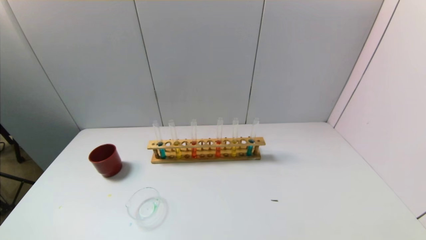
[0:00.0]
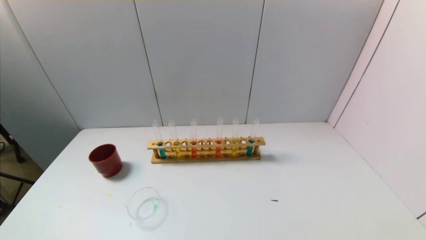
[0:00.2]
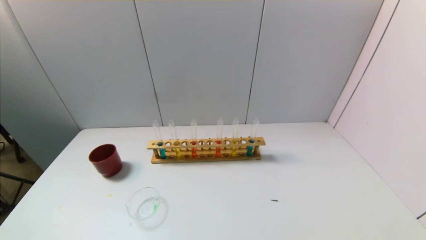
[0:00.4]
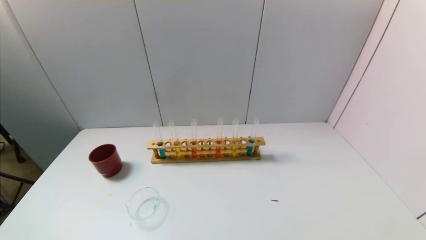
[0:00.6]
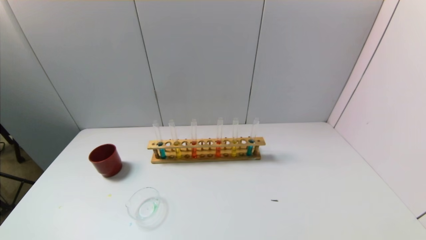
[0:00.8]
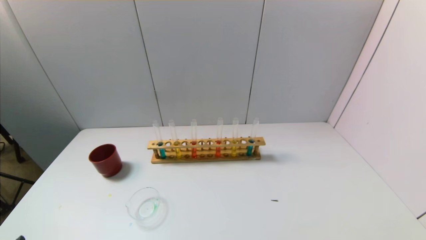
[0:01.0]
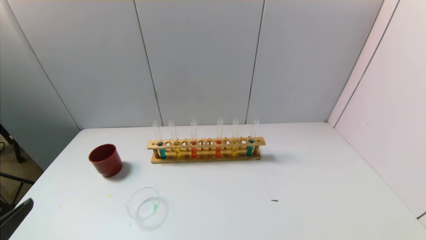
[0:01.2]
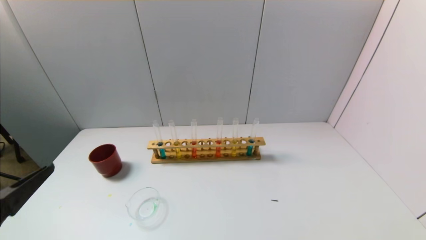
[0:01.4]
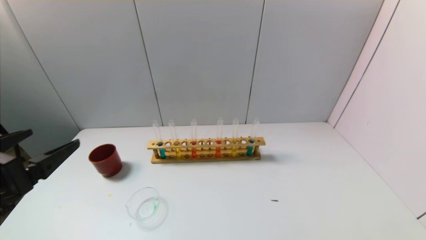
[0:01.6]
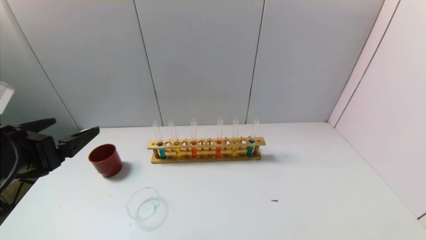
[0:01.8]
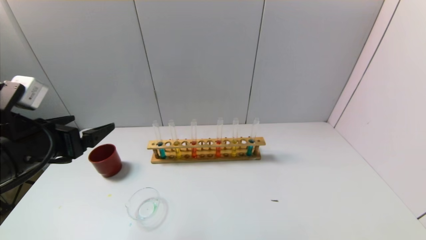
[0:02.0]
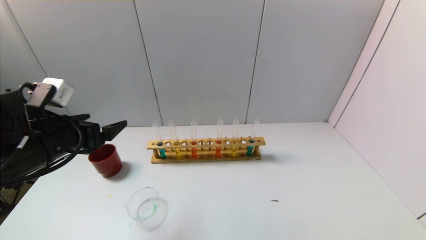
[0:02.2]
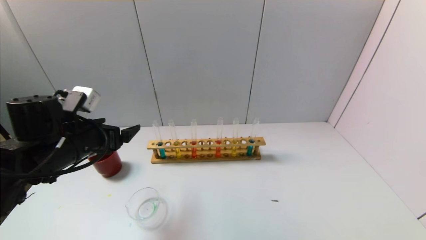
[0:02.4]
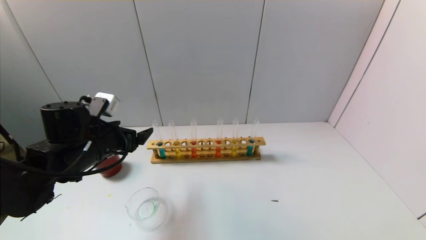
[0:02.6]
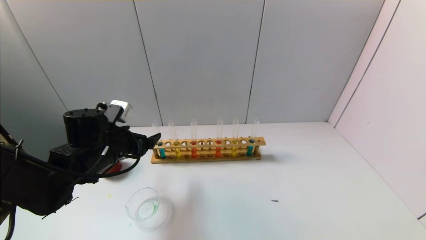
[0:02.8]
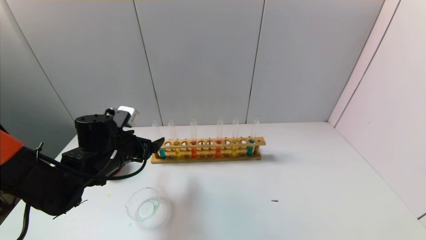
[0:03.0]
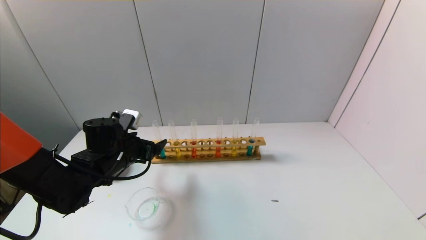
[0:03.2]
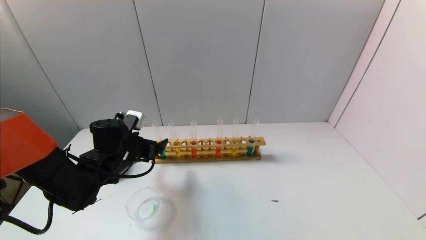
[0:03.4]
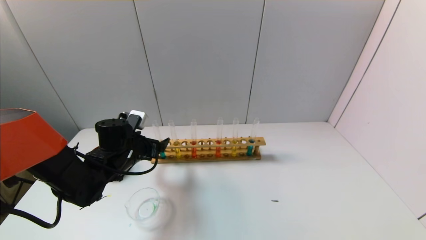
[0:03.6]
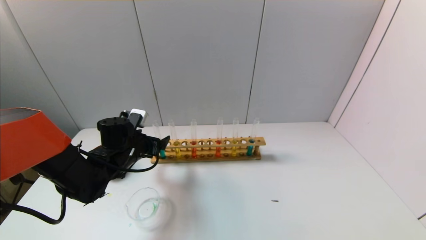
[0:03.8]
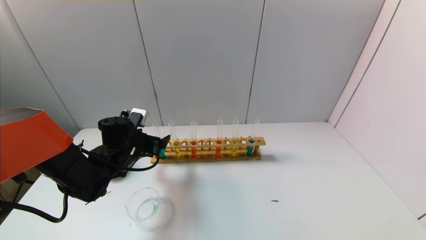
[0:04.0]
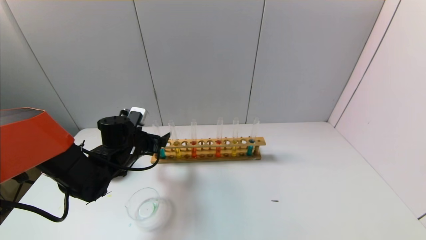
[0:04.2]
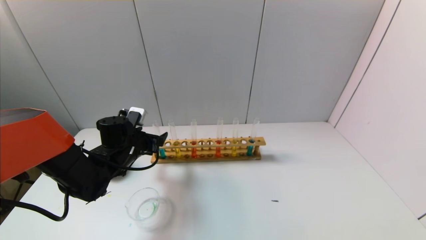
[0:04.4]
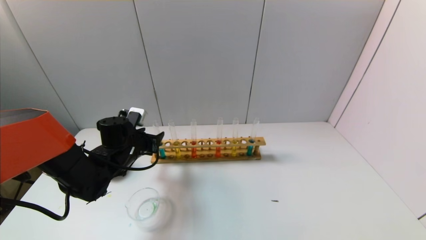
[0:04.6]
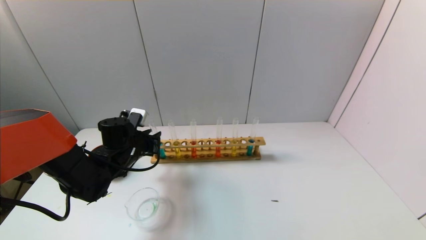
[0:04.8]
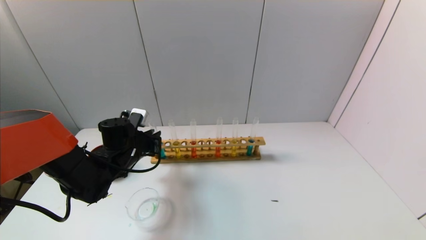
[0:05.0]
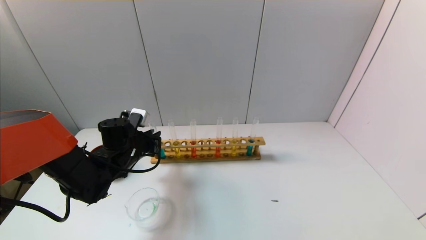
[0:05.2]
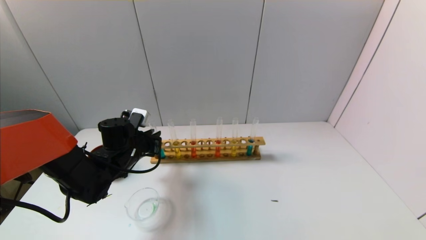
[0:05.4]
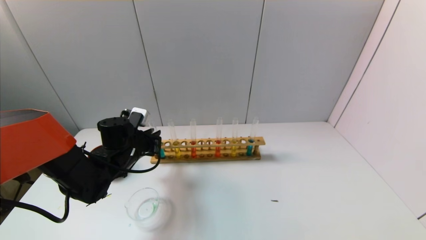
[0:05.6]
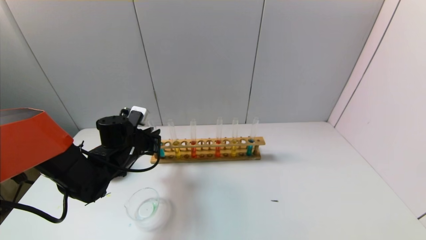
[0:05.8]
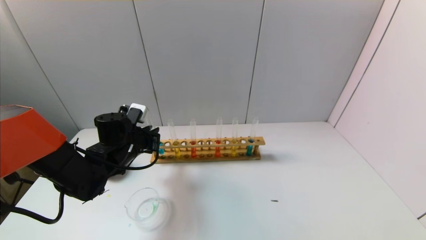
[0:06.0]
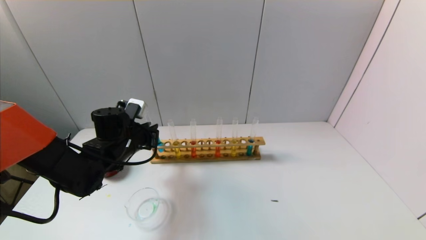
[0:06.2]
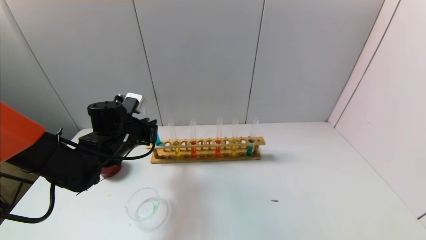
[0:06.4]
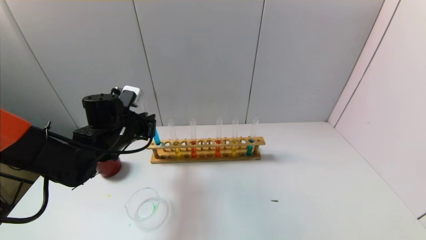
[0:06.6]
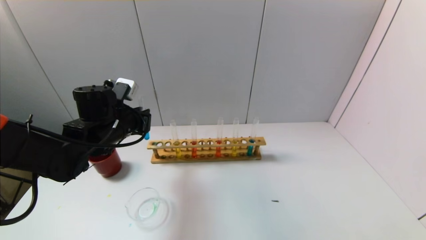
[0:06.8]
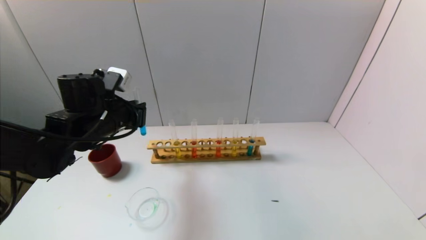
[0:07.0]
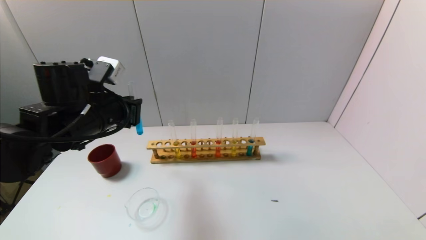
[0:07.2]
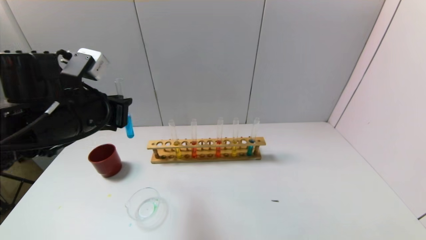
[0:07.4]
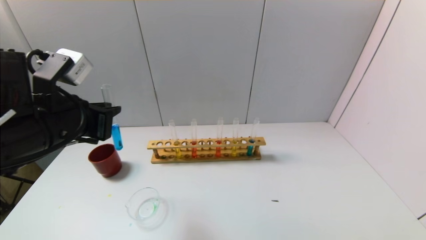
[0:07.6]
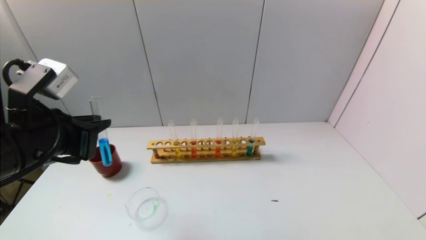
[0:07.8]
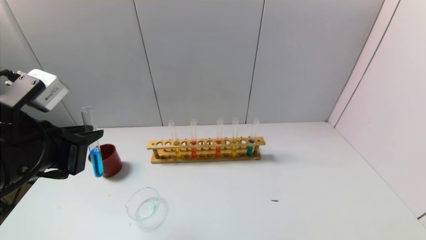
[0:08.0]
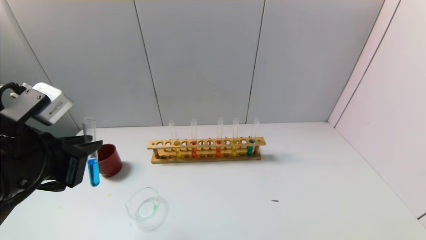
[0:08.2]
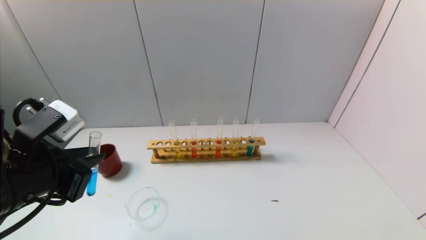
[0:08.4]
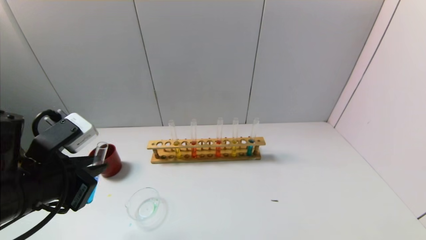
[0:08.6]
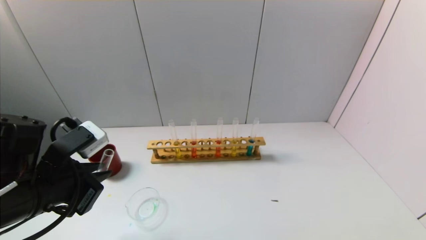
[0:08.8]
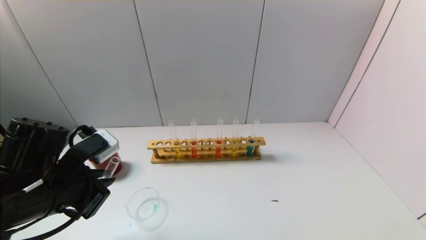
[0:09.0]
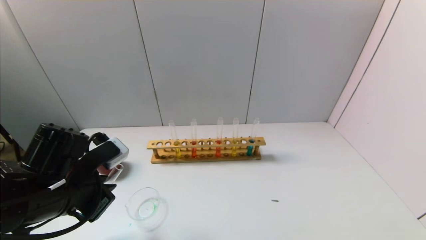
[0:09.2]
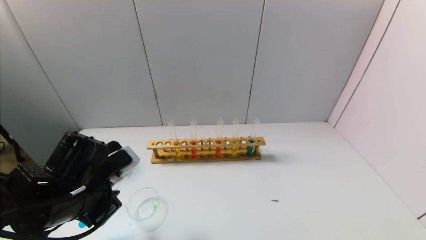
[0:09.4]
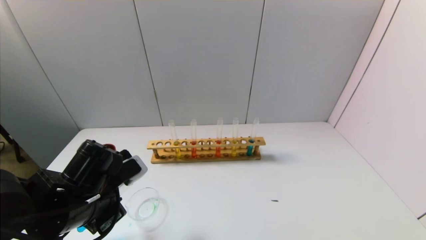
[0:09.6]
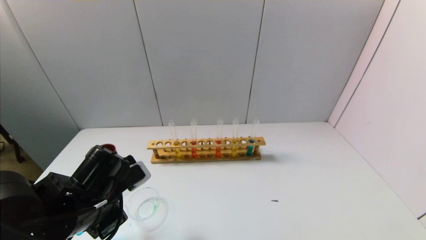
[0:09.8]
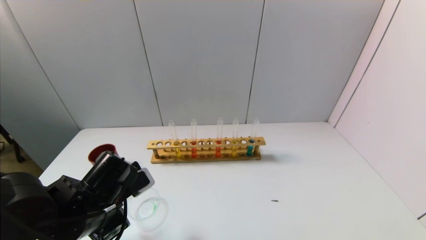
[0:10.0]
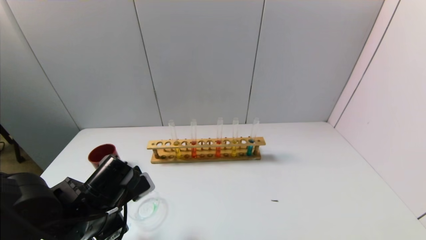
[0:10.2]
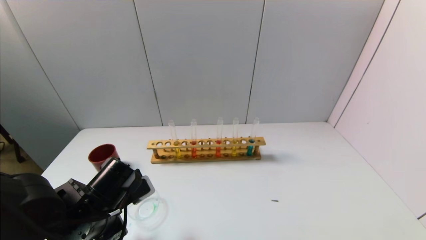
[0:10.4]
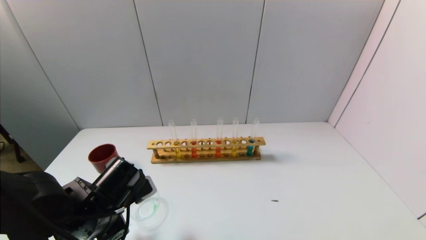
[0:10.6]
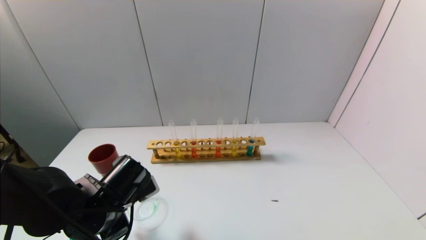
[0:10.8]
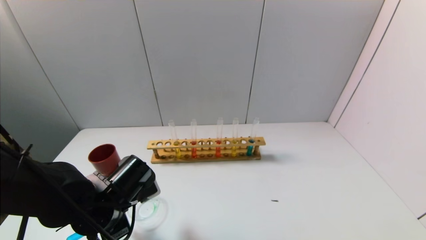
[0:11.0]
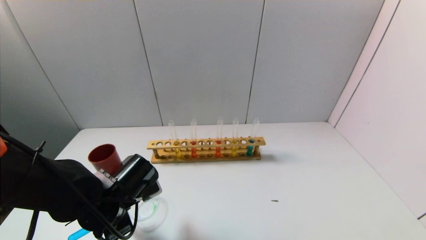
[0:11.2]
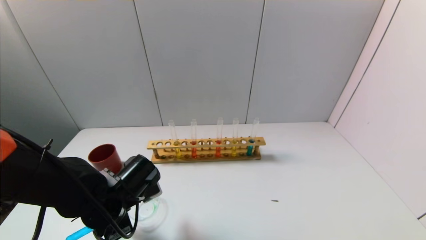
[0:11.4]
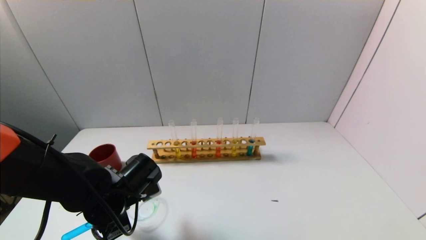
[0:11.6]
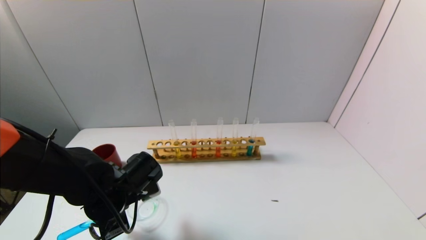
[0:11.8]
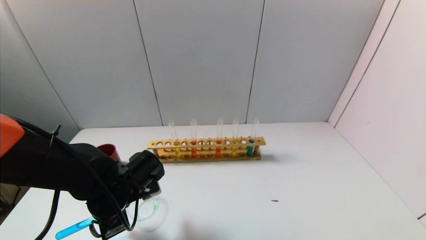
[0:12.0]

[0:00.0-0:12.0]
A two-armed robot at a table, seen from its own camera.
Task of the whole recording: pick up the test tube with yellow pigment and the test tube with blue pigment by grippers and pour them into the beaker.
Step, 0:00.0 to 0:05.2: Grasp the blue reagent with the left gripper.
0:00.0 to 0:01.6: The left gripper moves upward and forward, some 20 cm.
0:01.6 to 0:03.0: The left gripper moves forward, downward and to the right, roughly 20 cm.
0:03.0 to 0:04.4: The left gripper ends up approximately 5 cm from where it was.
0:04.4 to 0:06.0: The left gripper closes its fingers.
0:06.0 to 0:07.6: The left gripper travels upward and backward by approximately 20 cm.
0:07.6 to 0:09.0: The left gripper heads downward, covering approximately 10 cm.
0:09.0 to 0:10.4: The left gripper moves downward, roughly 10 cm.
0:10.4 to 0:12.0: There are only small adjustments of the grippers.

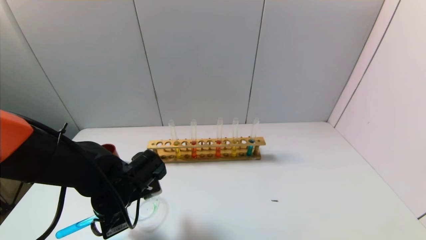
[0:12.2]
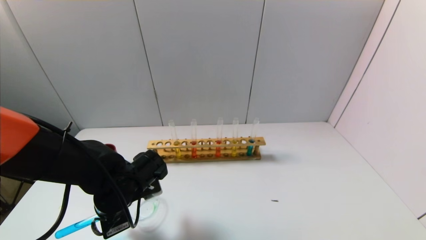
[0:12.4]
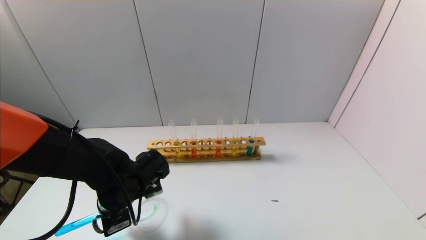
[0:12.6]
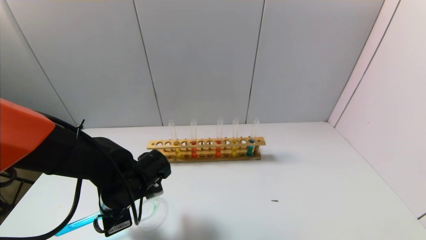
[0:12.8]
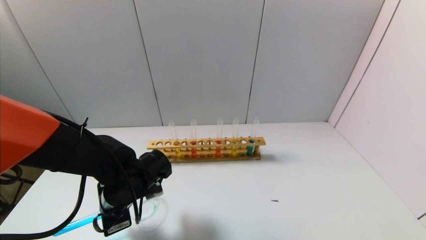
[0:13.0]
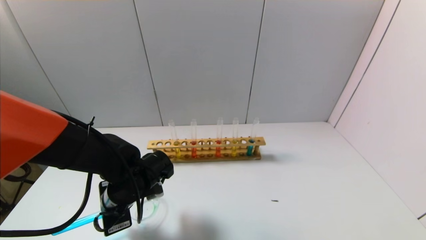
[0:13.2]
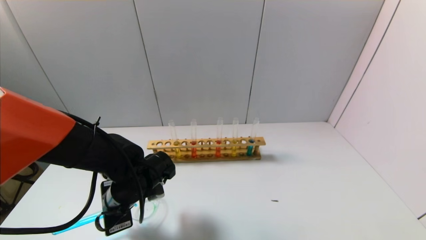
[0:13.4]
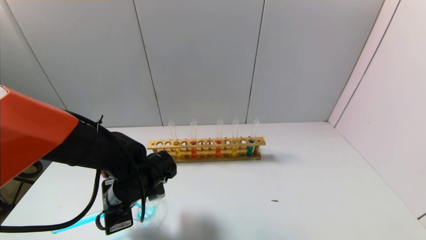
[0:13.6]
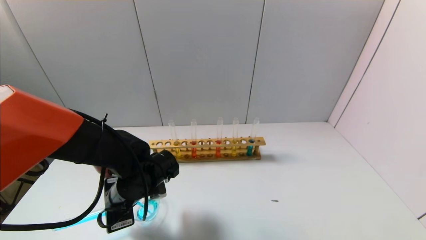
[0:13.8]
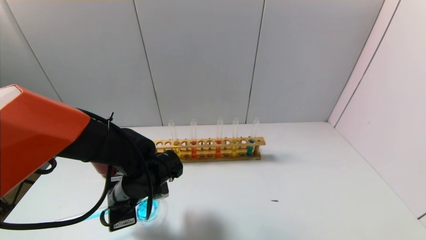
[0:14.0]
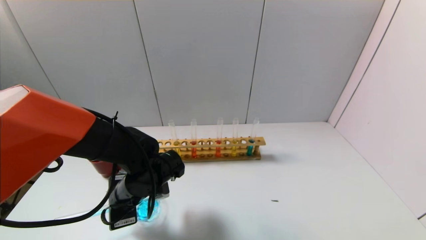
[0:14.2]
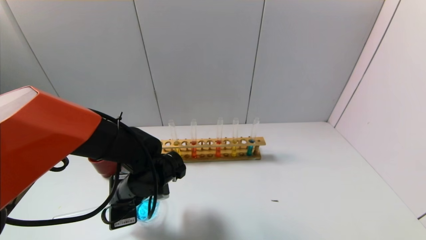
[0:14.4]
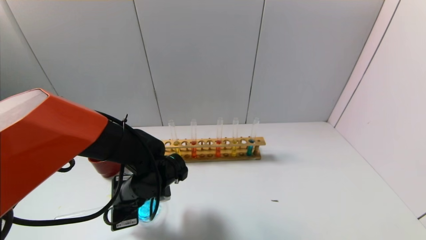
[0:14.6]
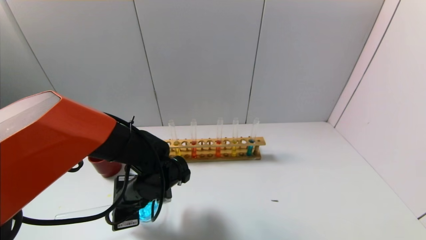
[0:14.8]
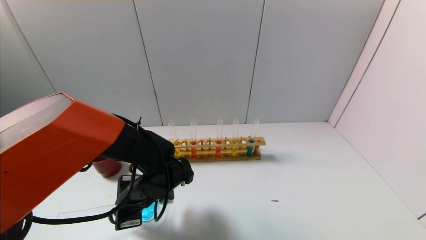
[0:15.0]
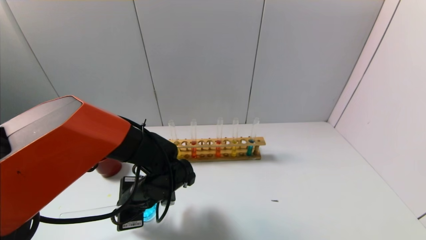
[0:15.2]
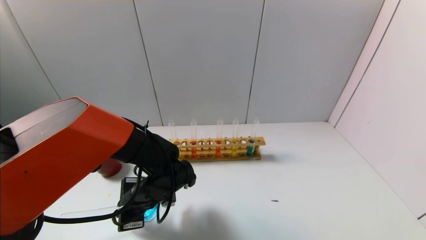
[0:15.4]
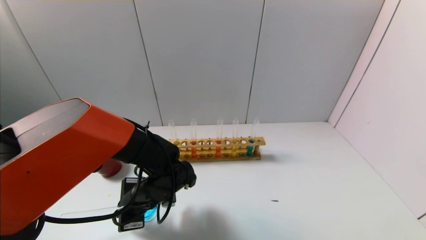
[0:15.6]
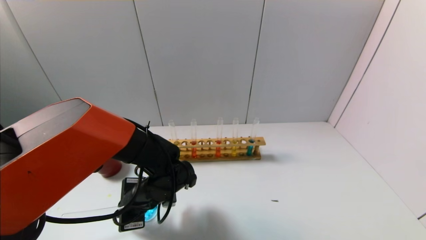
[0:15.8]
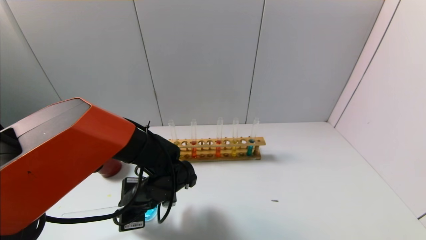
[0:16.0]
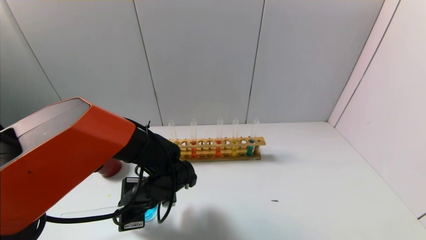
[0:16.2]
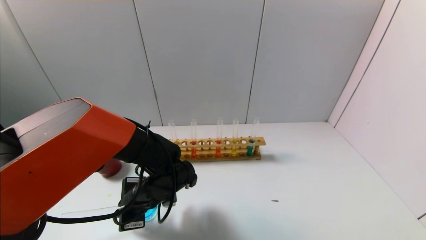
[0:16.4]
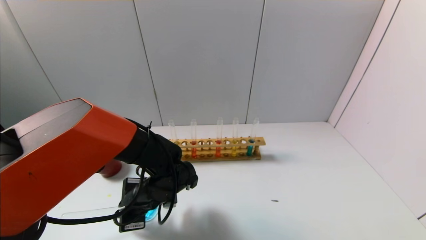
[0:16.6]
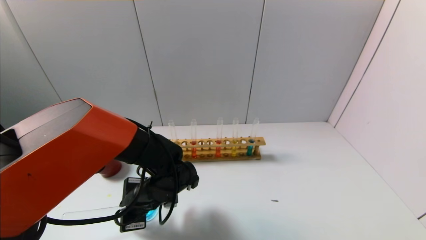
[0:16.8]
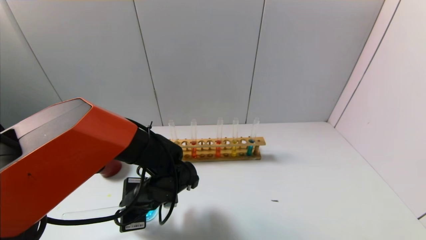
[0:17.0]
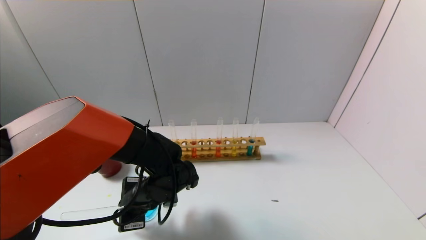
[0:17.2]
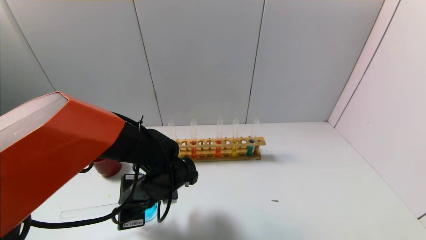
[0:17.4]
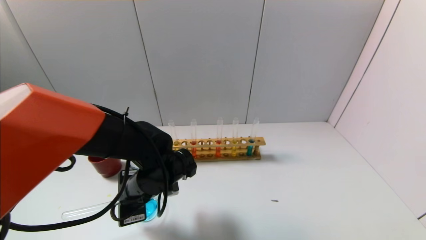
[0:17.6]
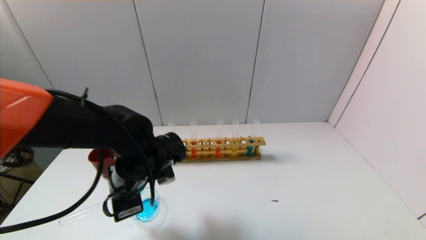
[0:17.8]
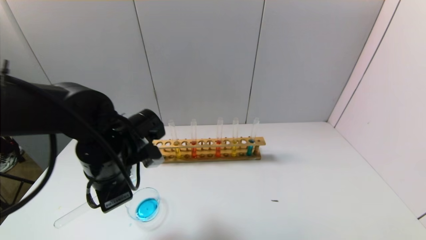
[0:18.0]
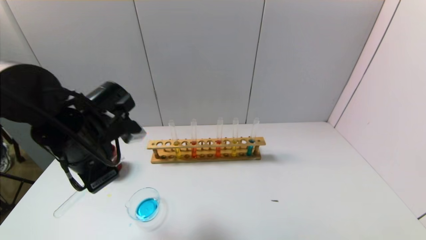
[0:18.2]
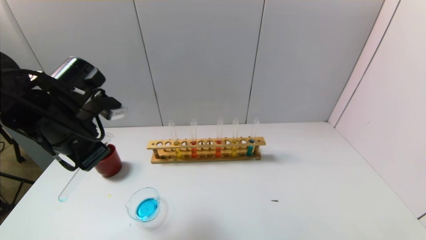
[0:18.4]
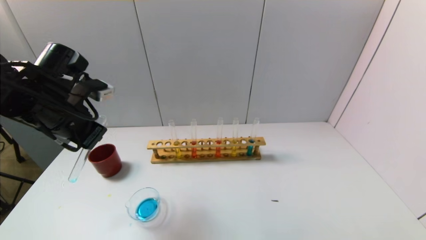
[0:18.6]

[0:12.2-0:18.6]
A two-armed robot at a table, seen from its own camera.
Task of the whole recording: pick up the test tube with yellow pigment and the test tube with blue pigment by grippers and pour them into the beaker.
Step, 0:12.2 to 0:16.6: Pour the blue reagent into the graduated cylinder with the left gripper.
0:12.2 to 0:13.8: The grippers move only a little.
0:13.8 to 0:15.4: The grippers stay close to where they were, moving slightly.
0:15.4 to 0:17.0: Neither gripper changes place.
0:17.0 to 0:18.6: The left gripper shifts approximately 25 cm upward and to the left.
